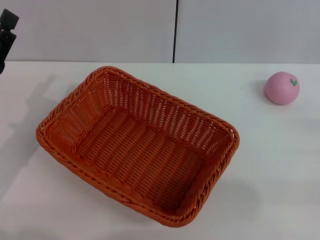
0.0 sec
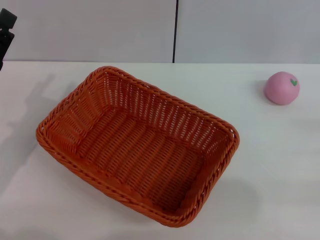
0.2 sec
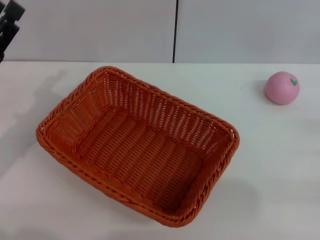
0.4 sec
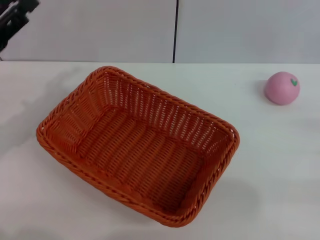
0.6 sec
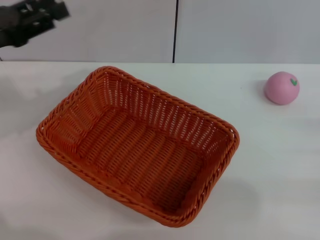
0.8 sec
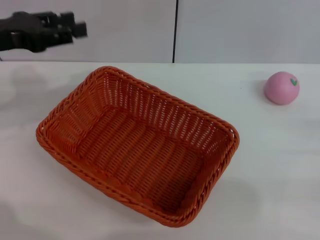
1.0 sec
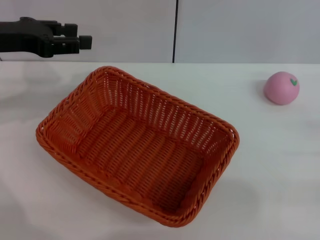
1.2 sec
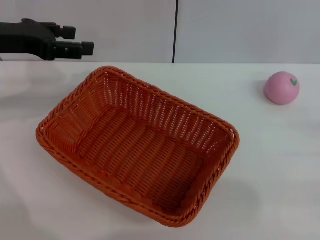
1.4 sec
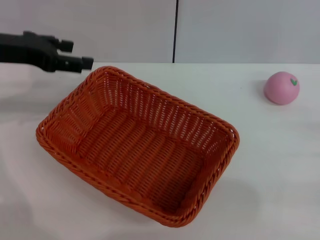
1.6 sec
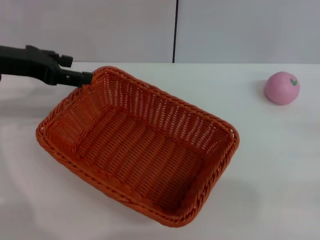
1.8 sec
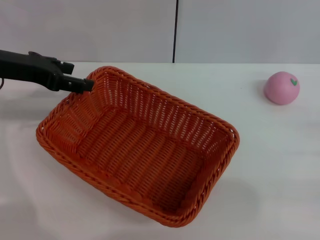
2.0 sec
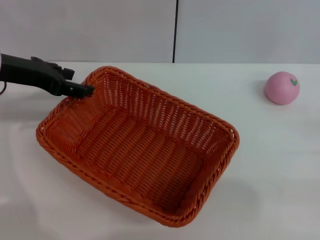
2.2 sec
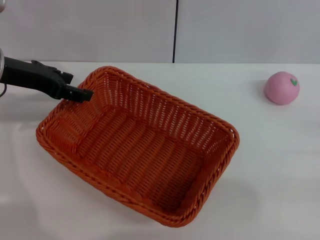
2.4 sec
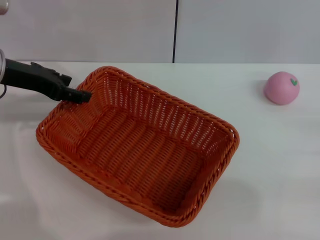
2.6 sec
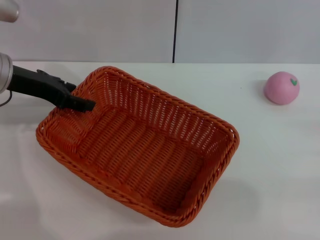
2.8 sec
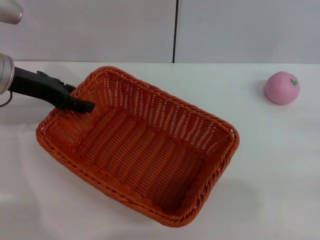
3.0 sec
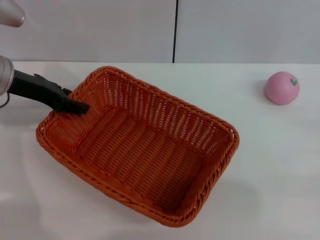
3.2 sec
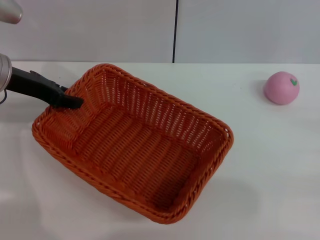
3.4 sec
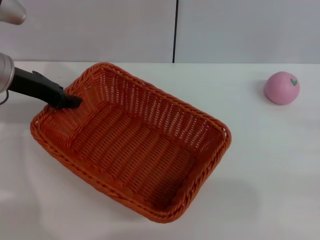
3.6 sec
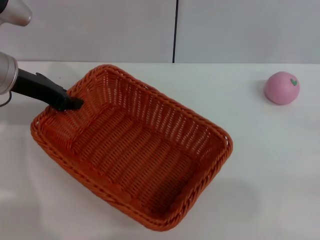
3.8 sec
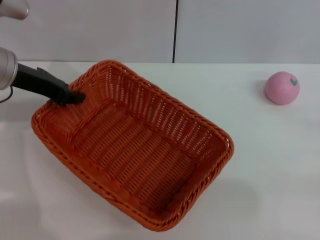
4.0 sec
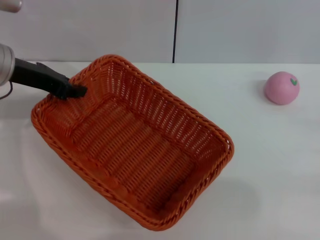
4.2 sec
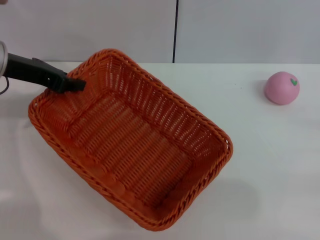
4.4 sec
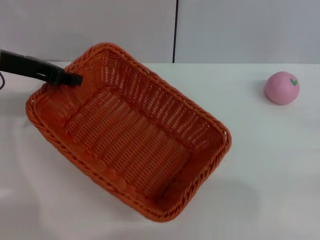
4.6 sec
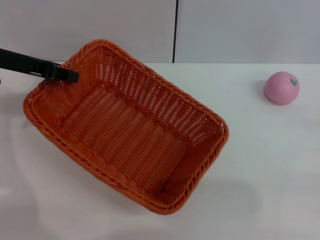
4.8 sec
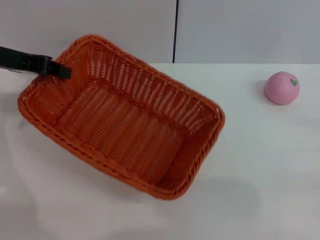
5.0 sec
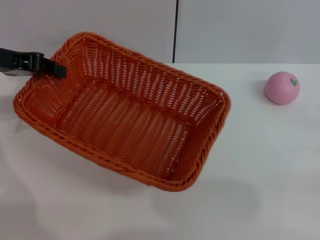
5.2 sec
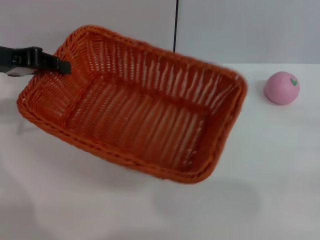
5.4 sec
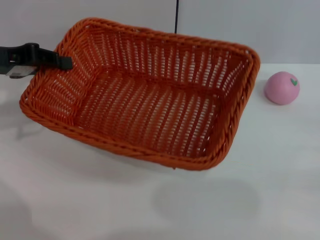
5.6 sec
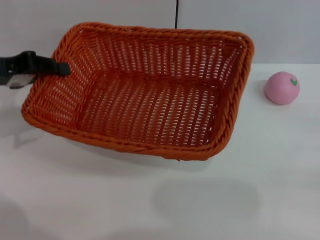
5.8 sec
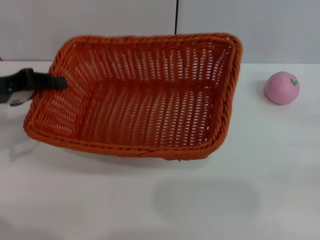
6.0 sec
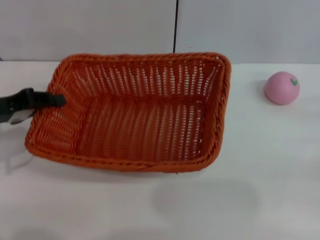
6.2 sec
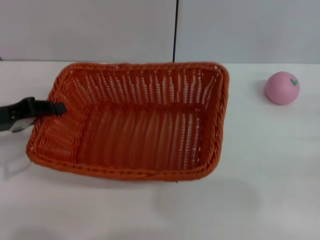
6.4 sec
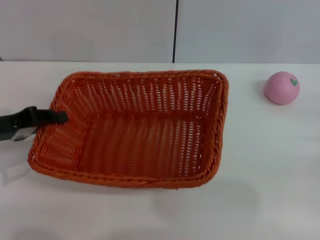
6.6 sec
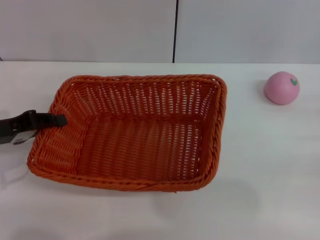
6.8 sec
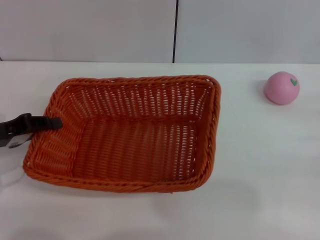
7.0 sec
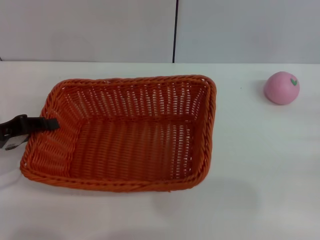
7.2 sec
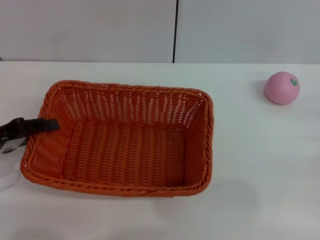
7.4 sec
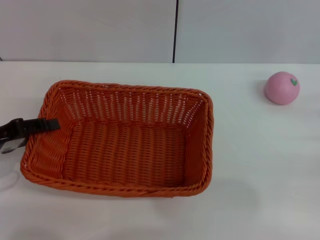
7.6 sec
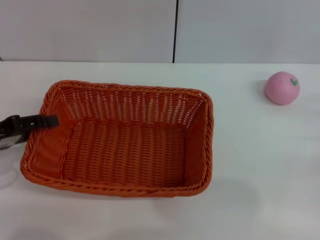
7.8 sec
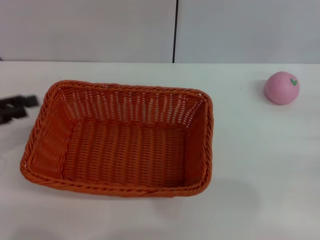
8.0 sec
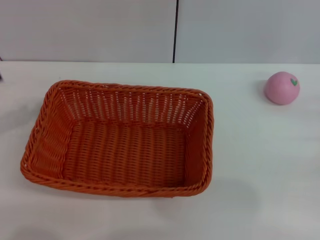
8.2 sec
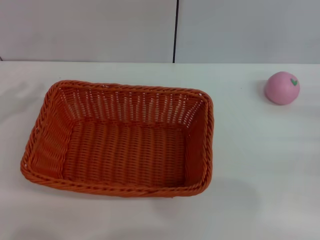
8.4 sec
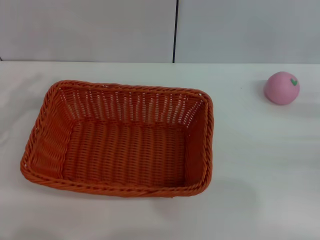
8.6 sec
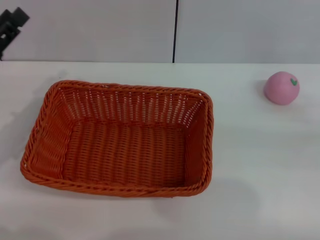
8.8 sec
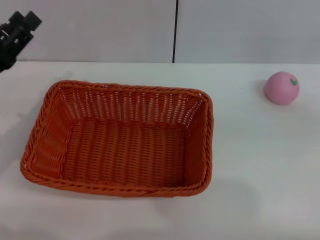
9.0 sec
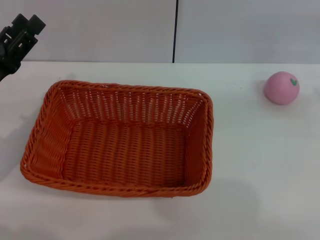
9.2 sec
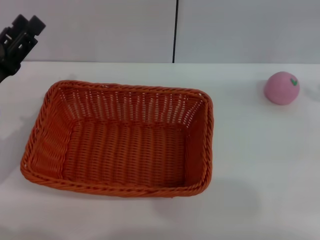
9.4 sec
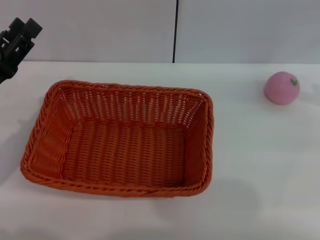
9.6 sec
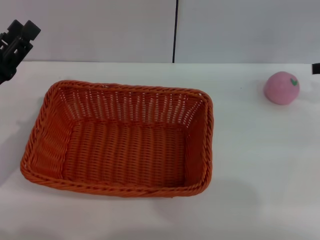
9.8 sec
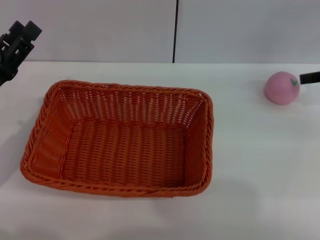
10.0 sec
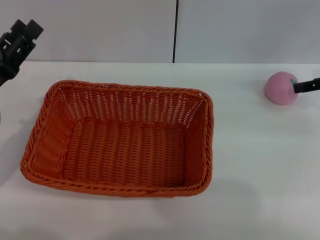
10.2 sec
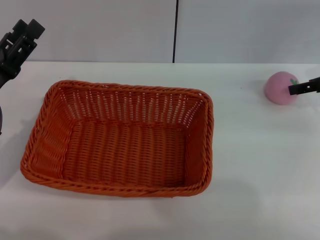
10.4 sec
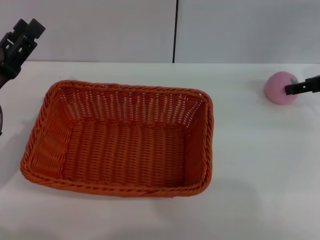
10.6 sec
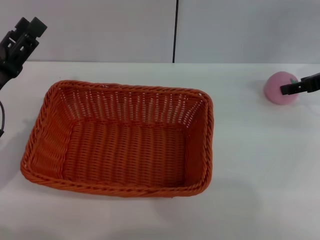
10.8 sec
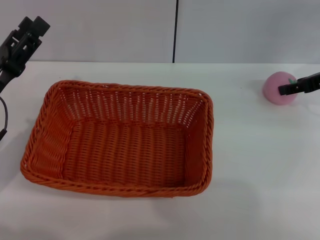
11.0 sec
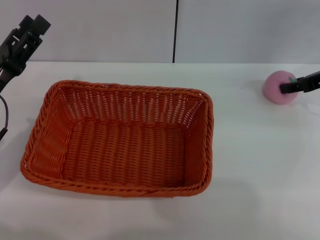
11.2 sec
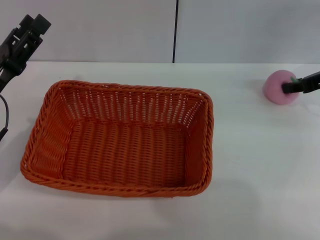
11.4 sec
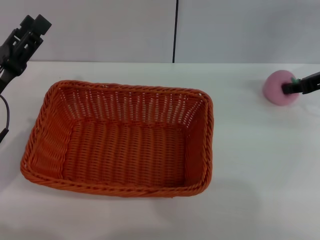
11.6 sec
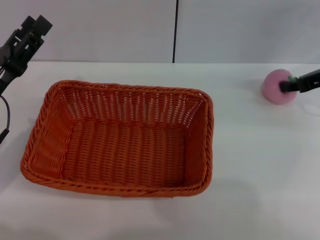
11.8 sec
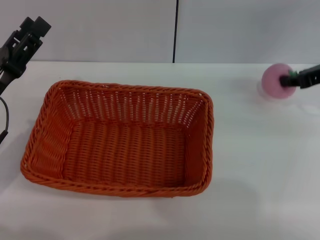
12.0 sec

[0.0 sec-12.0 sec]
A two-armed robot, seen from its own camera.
Step, 0.0 sec to 4.8 sec: Pick up the light basket with the left gripper.
Step, 5.2 sec to 8.0 sec: Place the light basket in the center of view with the right gripper.
0.0 sec to 1.6 sec: The left gripper travels upward and forward by roughly 15 cm.
1.6 sec to 3.0 sec: The grippers move only a little.
3.0 sec to 4.4 sec: The left gripper closes.
4.4 sec to 6.0 sec: The left gripper travels backward and to the left by approximately 10 cm.
6.0 sec to 7.6 sec: The left gripper moves downward and backward, some 10 cm.
7.6 sec to 9.0 sec: The left gripper travels to the left and back again, roughly 5 cm each way, and opens its fingers.
10.4 sec to 12.0 sec: The right gripper closes.

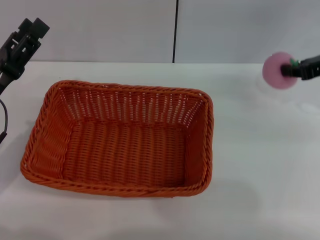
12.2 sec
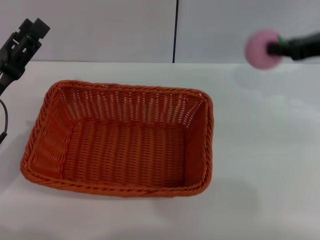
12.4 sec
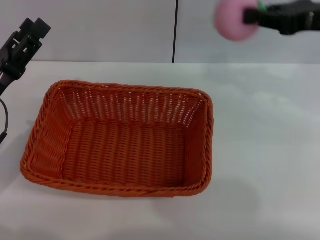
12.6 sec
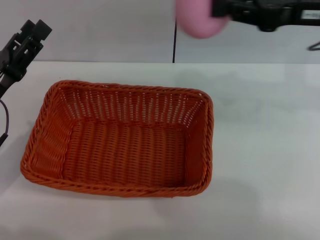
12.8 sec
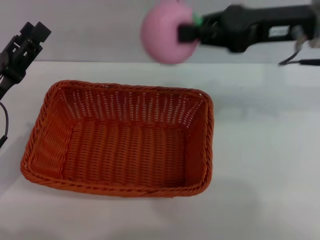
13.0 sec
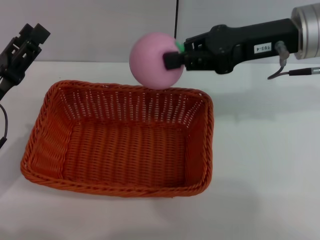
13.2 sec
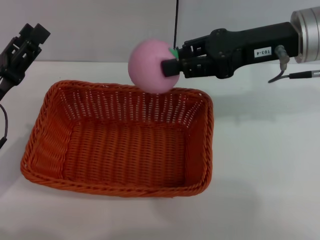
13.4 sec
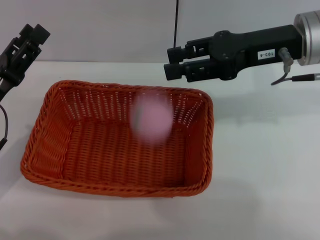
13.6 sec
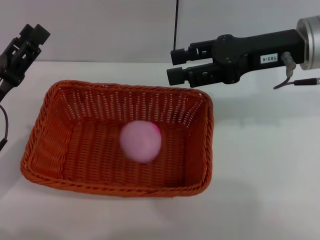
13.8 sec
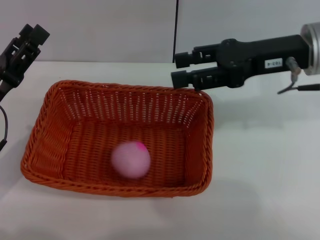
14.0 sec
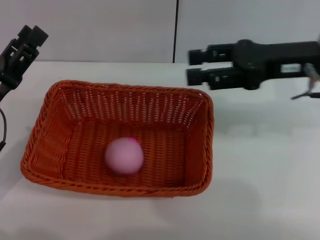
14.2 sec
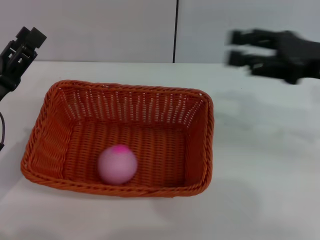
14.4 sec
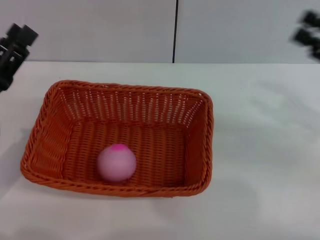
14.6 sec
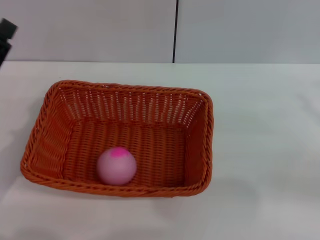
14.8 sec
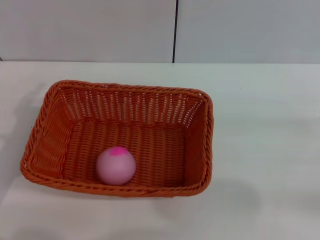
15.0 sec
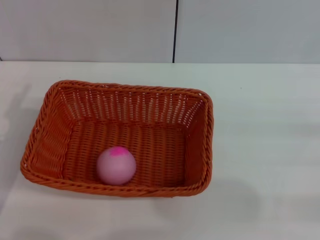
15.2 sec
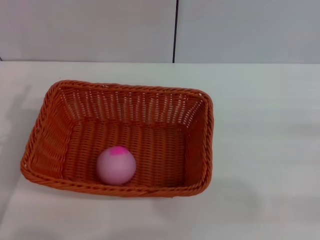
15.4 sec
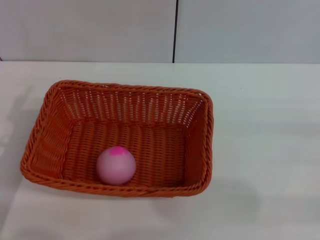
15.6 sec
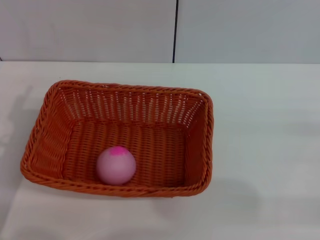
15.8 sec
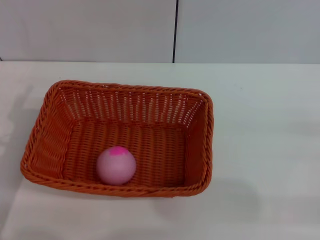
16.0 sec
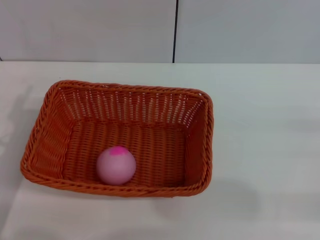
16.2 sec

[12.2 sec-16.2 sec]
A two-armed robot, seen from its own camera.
12.2 sec to 13.6 sec: The right gripper moves to the left, roughly 10 cm, and opens.
13.6 sec to 14.8 sec: The right gripper goes about 25 cm to the right, backward and downward.

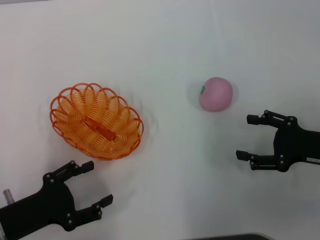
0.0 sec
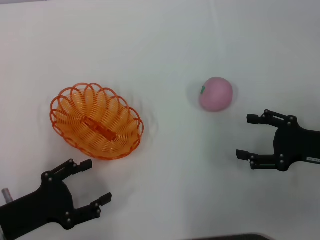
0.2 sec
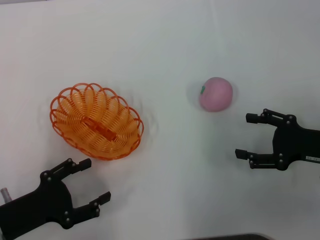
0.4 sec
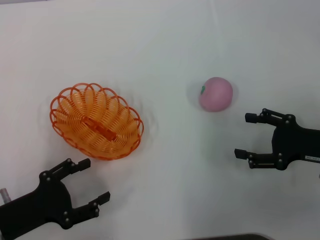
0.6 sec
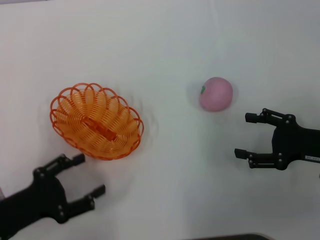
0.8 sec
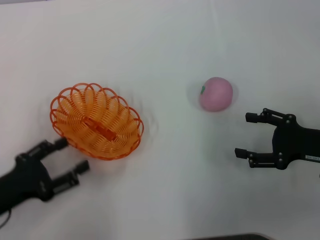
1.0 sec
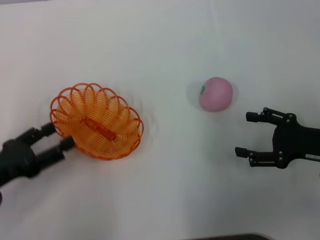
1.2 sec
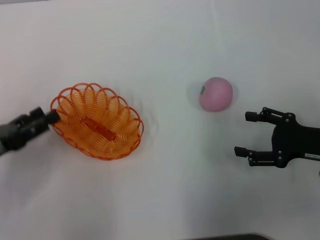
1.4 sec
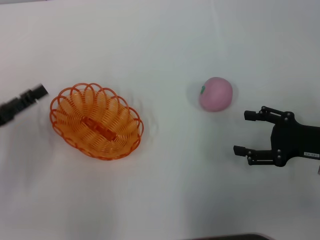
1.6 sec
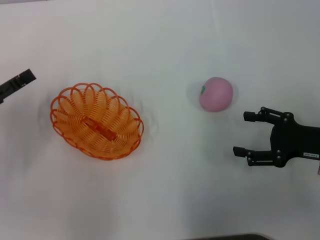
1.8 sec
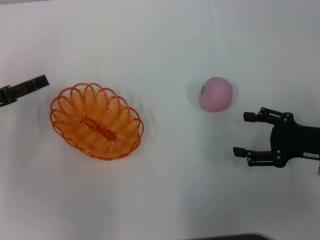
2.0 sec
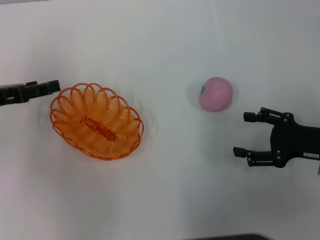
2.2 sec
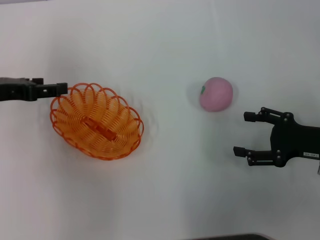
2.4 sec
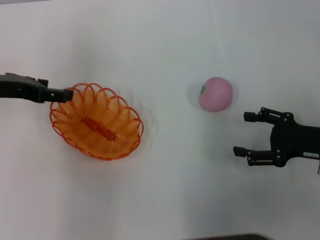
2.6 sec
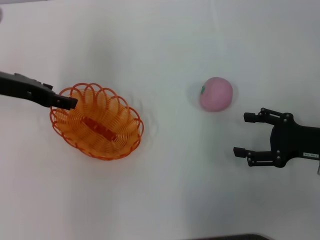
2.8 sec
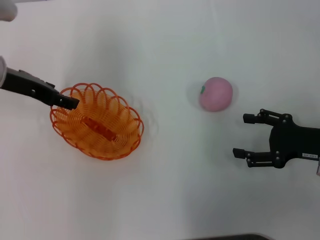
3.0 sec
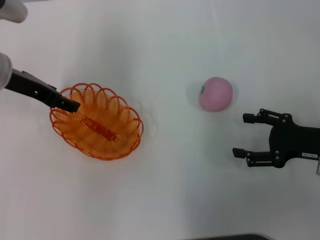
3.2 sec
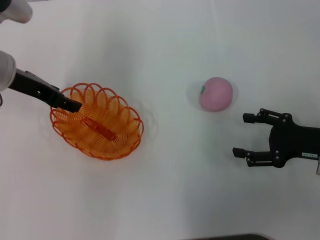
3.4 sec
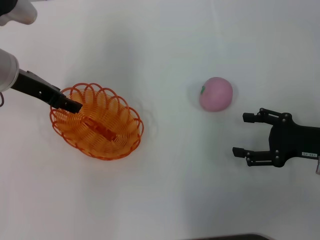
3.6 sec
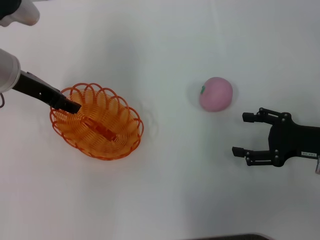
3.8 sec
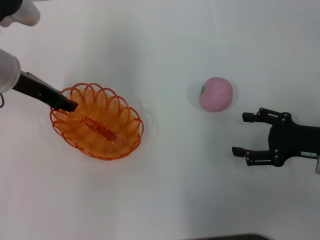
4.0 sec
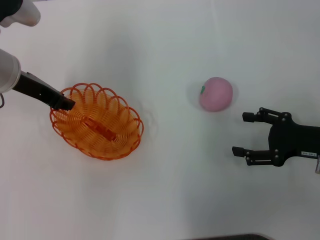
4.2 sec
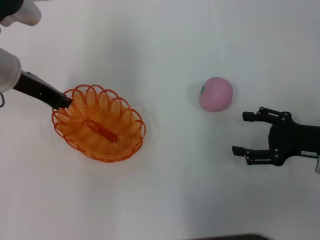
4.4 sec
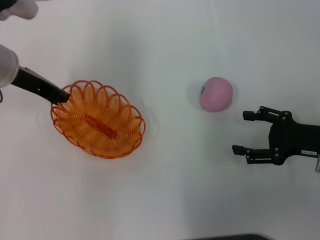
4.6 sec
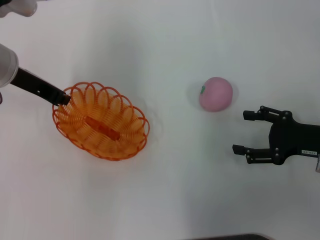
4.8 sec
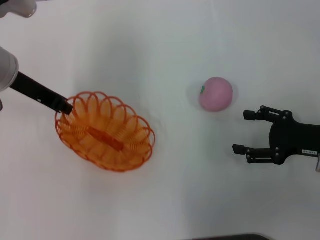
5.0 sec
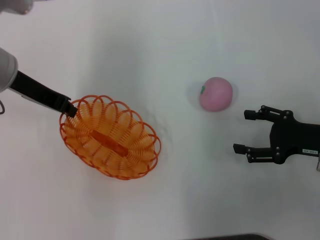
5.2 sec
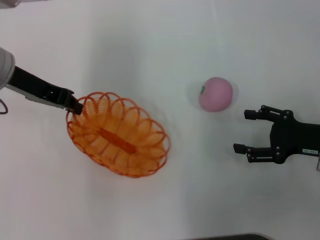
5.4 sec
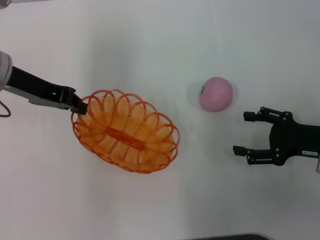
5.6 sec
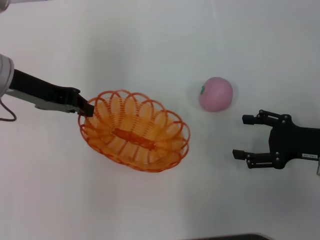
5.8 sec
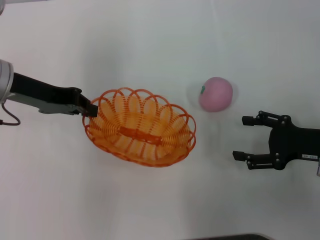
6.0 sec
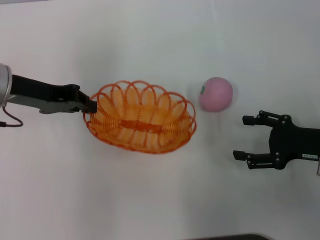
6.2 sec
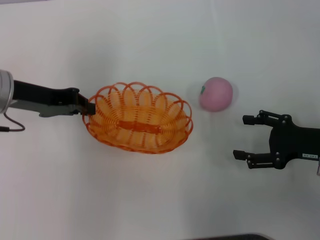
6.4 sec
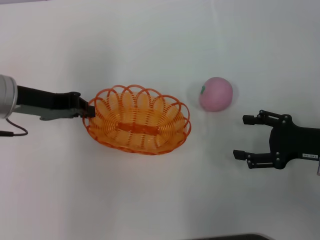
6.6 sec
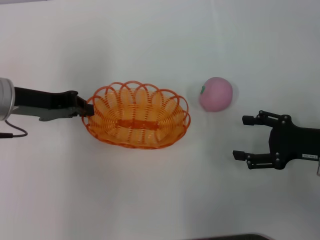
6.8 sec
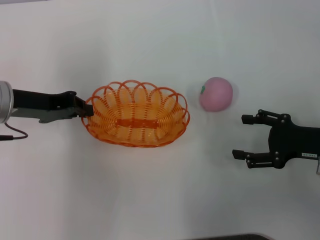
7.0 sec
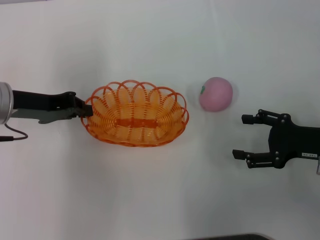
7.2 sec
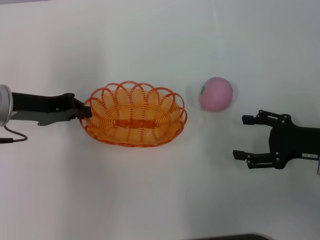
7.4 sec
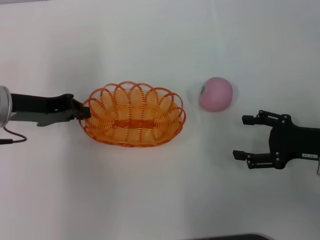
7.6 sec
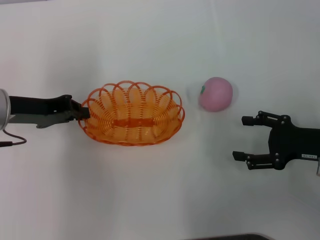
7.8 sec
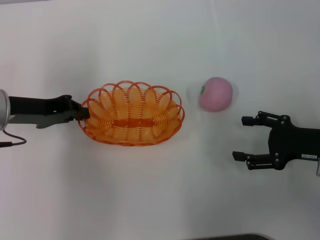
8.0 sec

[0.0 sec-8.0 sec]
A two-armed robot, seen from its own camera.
Step, 0.0 sec to 4.8 sec: Pick up the basket with the left gripper.
0.0 sec to 1.6 sec: The left gripper shifts some 10 cm forward, to the left and upward.
1.6 sec to 3.2 sec: The left gripper travels forward, to the right and upward by approximately 20 cm.
3.2 sec to 4.8 sec: The left gripper closes its fingers.
6.4 sec to 8.0 sec: The grippers move only a little.
